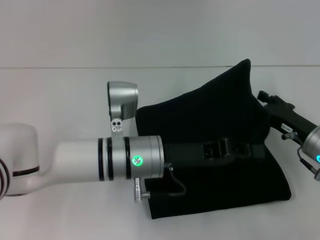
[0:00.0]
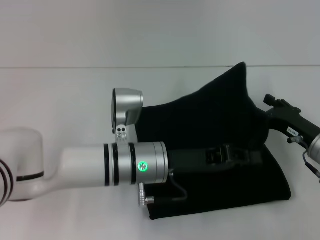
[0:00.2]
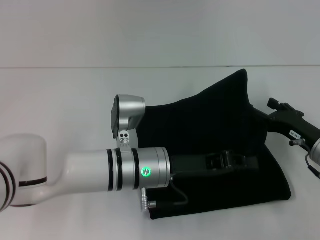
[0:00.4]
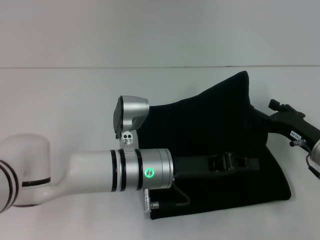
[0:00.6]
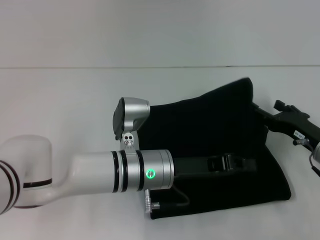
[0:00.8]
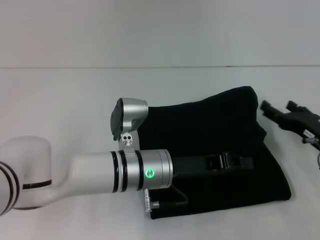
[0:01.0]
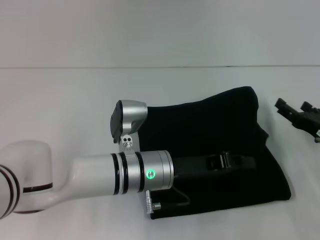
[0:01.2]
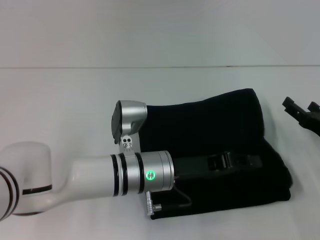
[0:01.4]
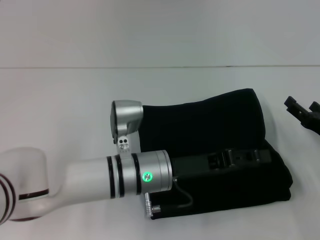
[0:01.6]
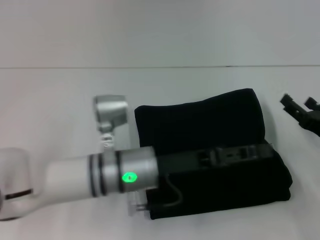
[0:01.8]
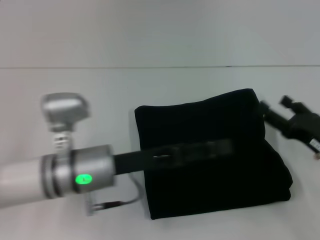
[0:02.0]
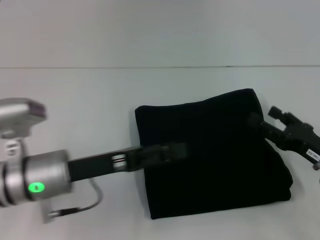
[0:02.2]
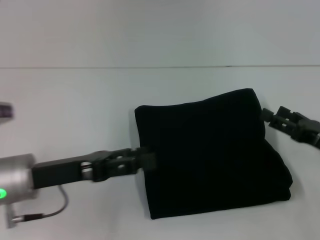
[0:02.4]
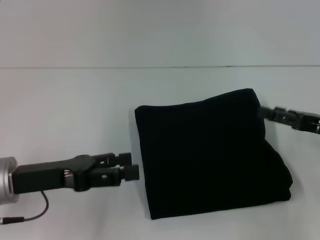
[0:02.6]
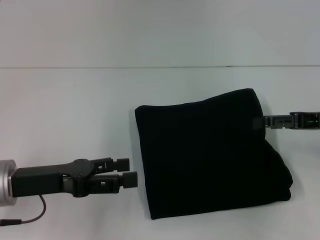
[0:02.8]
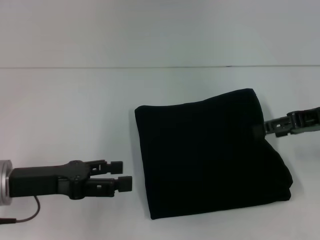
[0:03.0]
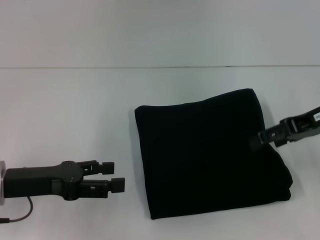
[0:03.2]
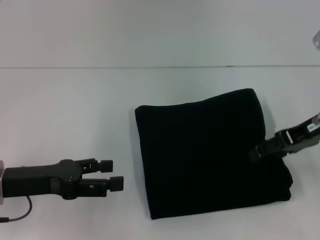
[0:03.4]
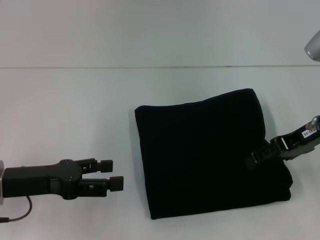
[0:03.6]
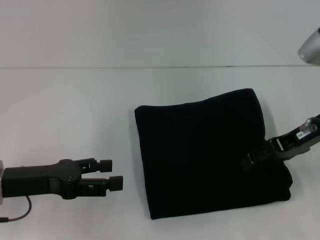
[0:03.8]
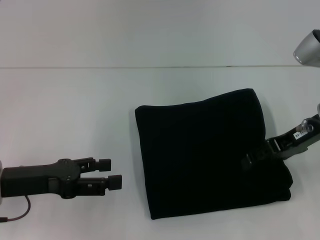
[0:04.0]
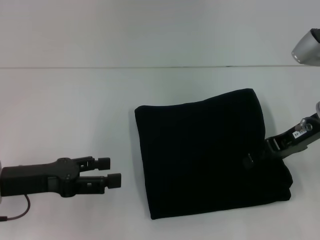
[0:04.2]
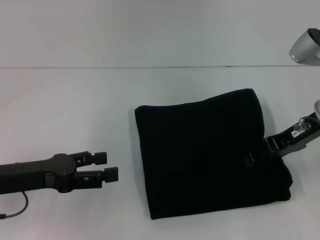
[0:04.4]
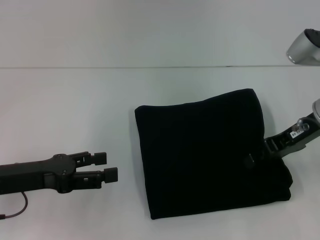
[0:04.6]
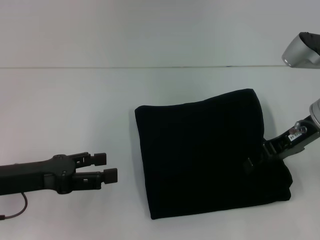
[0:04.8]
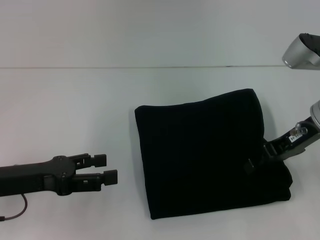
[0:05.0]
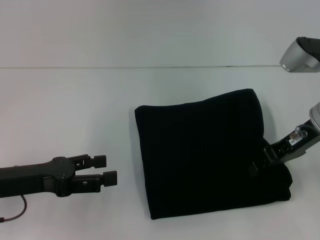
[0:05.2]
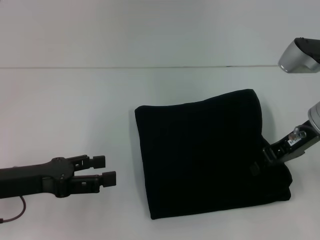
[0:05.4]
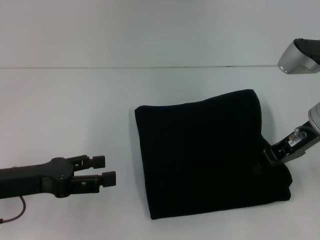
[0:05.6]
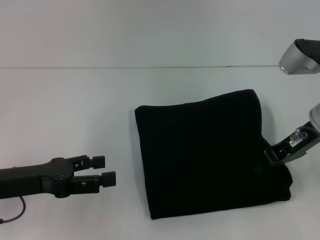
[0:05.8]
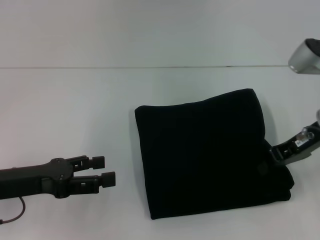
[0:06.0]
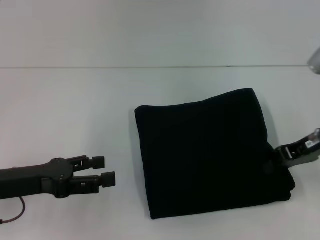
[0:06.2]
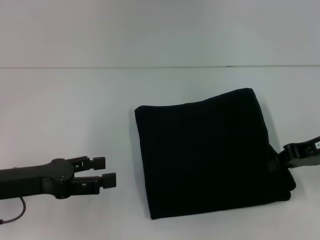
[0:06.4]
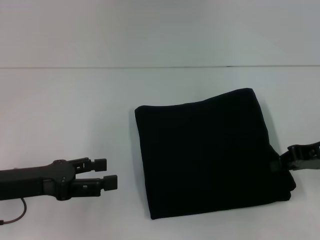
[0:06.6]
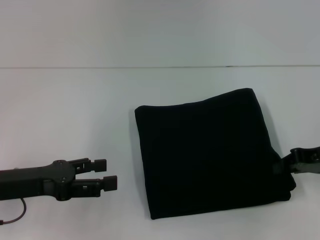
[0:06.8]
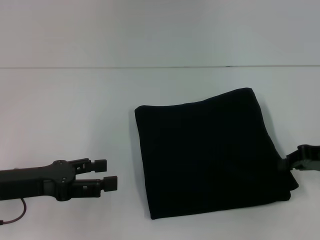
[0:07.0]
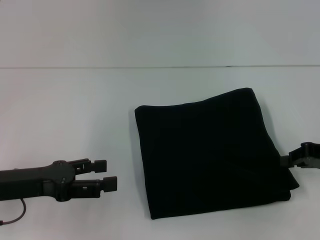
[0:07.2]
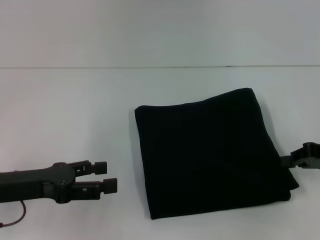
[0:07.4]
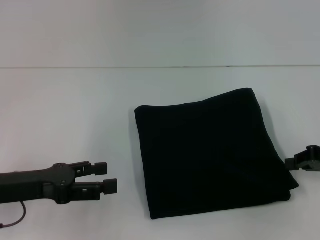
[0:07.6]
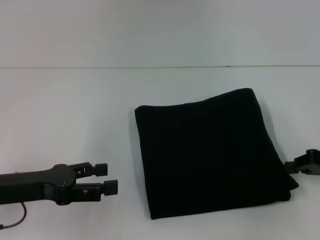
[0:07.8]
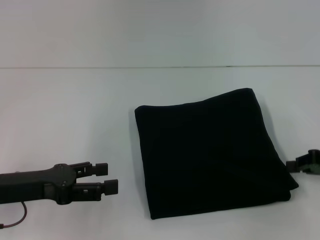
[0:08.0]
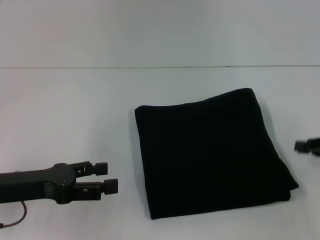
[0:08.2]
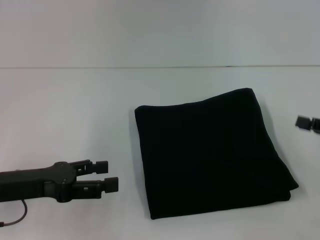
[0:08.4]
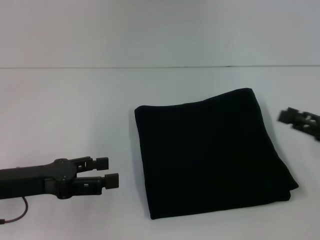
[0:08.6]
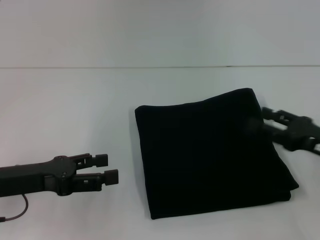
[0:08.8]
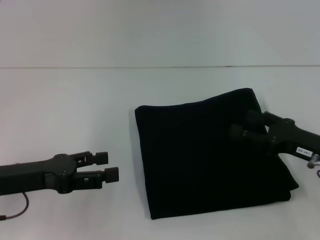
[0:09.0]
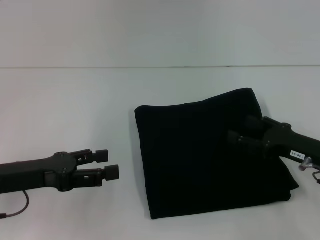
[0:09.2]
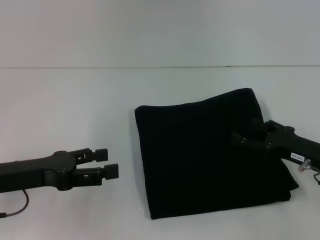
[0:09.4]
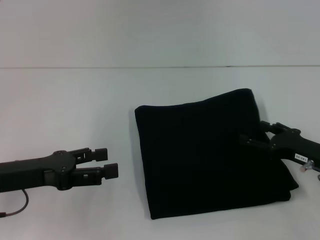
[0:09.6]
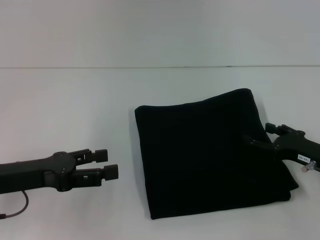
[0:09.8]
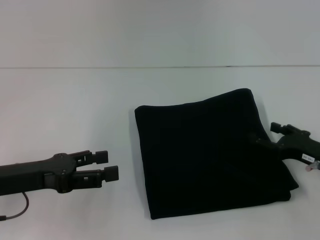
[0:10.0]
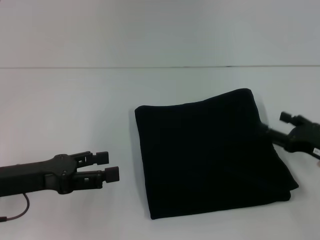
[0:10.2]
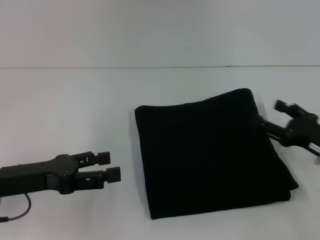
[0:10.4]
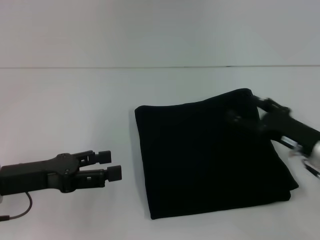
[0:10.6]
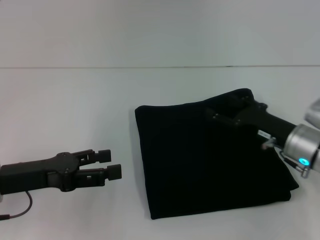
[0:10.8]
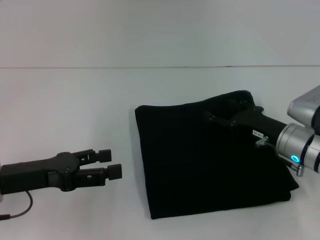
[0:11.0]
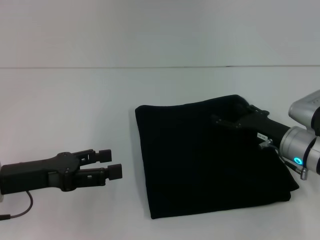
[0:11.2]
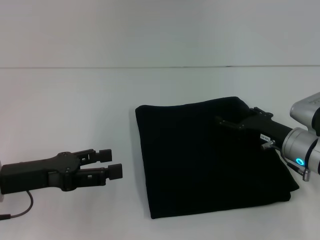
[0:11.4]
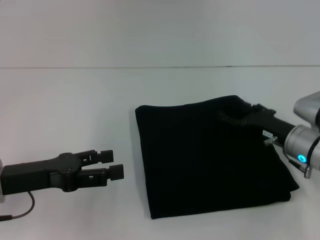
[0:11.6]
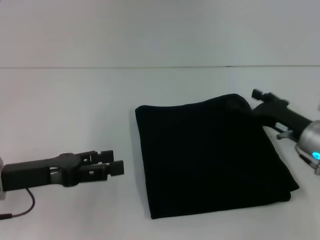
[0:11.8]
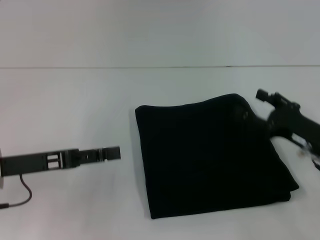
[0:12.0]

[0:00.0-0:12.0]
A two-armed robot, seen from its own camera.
Step, 0:00.0 to 0:02.0: Fold the clothes with your left hand.
0:00.0 to 0:01.6: The right gripper goes some 5 cm to the right.
0:01.6 to 0:03.0: The right gripper goes roughly 15 cm upward; the left gripper heads to the left, covering some 20 cm, and opens.
0:03.0 to 0:04.4: The right gripper shifts by approximately 5 cm.
0:04.4 to 0:06.0: The right gripper closes up.
0:06.0 to 0:07.6: The right gripper heads to the right and downward, covering roughly 10 cm.
0:07.6 to 0:09.0: The right gripper moves to the left, some 5 cm, and opens its fingers.
0:09.0 to 0:10.4: There are only small adjustments of the grippers.

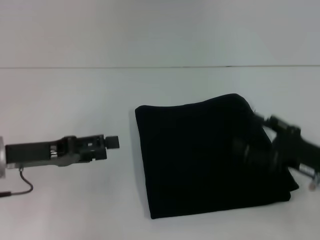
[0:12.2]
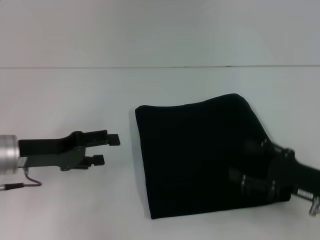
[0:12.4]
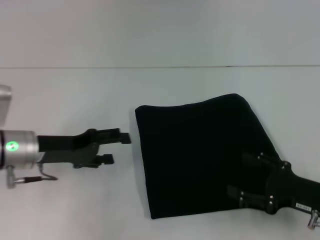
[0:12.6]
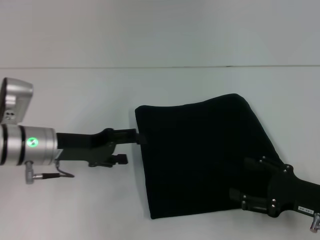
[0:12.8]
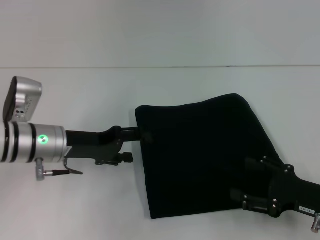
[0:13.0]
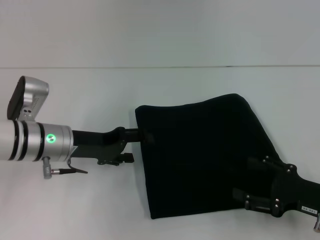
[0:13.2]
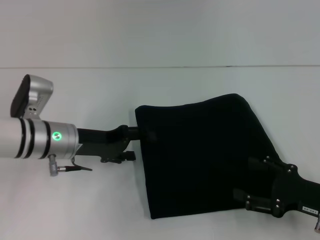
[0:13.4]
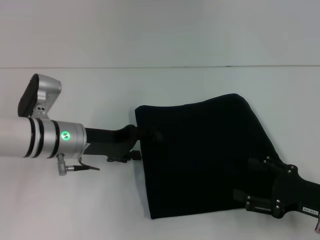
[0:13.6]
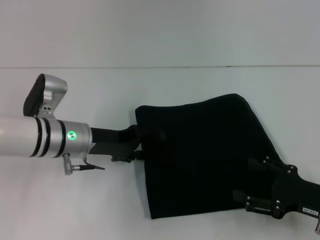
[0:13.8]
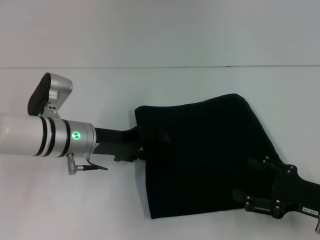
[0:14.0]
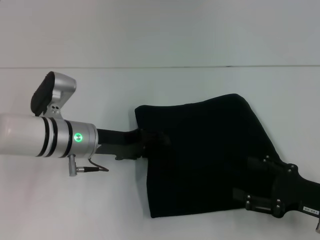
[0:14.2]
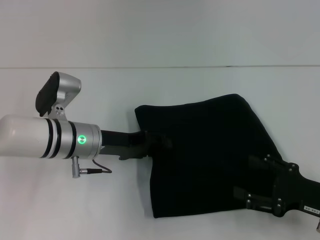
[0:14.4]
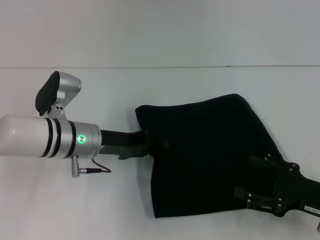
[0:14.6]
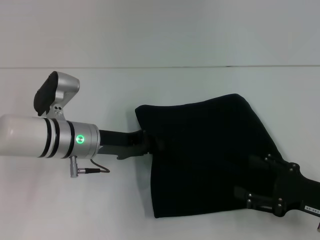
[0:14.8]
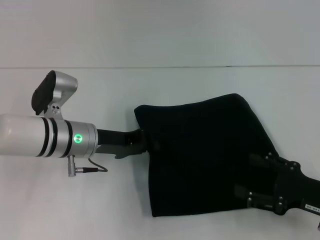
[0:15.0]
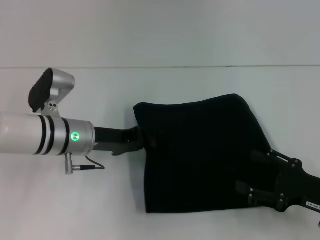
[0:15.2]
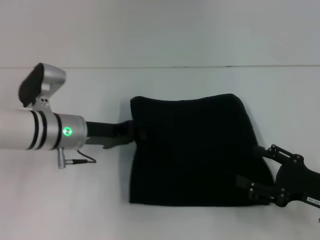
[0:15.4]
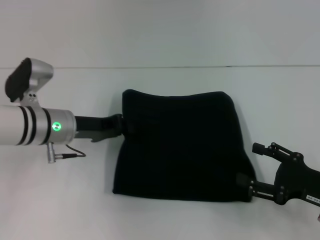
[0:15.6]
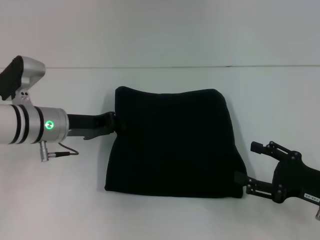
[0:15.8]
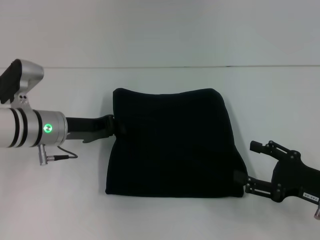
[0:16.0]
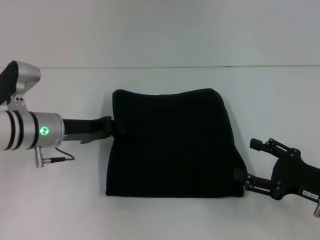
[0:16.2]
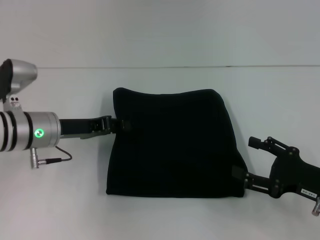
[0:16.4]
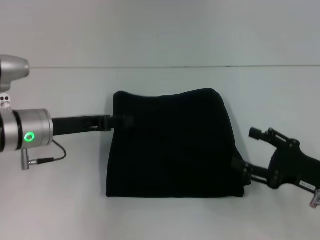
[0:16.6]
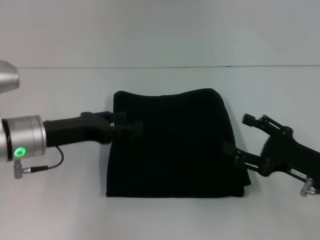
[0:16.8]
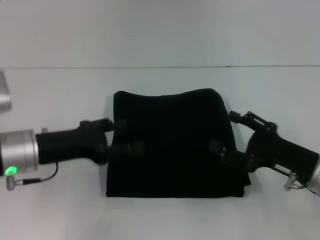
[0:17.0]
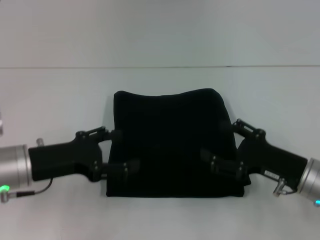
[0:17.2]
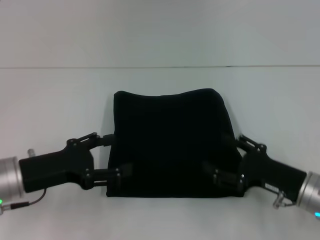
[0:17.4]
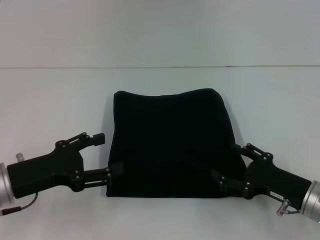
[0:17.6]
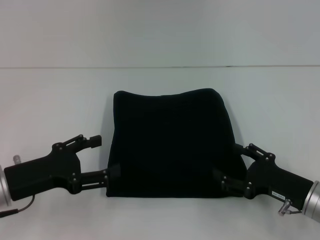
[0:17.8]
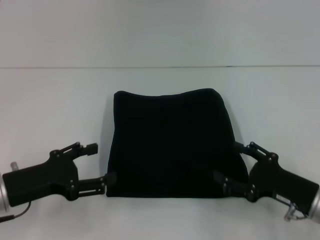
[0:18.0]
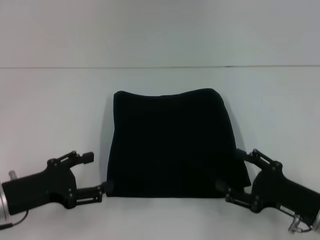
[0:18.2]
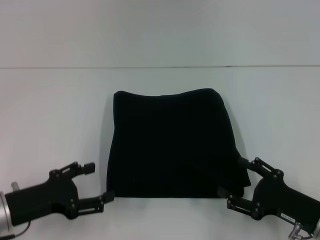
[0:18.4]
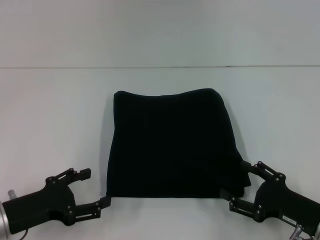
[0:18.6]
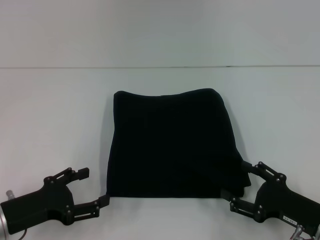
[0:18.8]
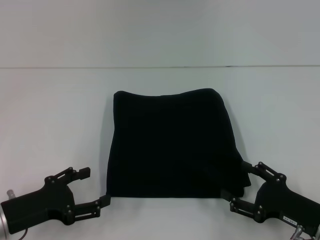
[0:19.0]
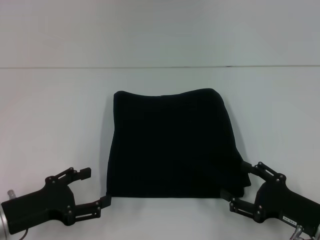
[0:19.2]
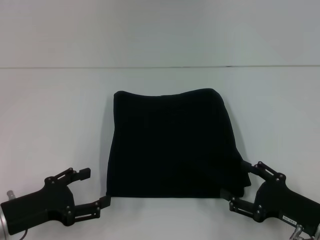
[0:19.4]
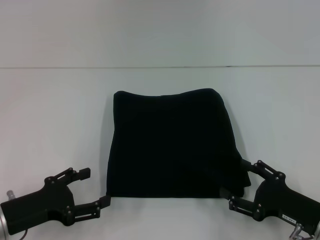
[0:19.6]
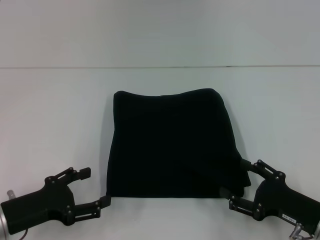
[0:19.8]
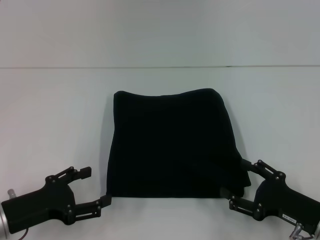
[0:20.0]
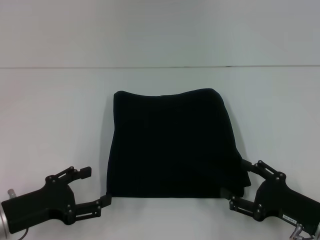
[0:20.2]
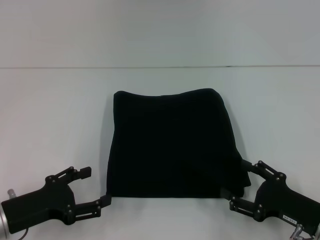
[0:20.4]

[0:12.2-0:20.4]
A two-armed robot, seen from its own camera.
0:12.2 to 0:13.8: The left gripper moves to the right and forward, some 10 cm.
0:13.8 to 0:15.4: The left gripper closes up.
0:15.4 to 0:17.2: The right gripper goes about 5 cm to the left. Meanwhile the left gripper goes some 10 cm backward and to the left, and opens.
0:17.2 to 0:18.8: The left gripper heads backward and downward, covering about 10 cm. Meanwhile the right gripper is displaced backward by roughly 5 cm.
0:18.8 to 0:20.4: Both grippers stay about where they are.
